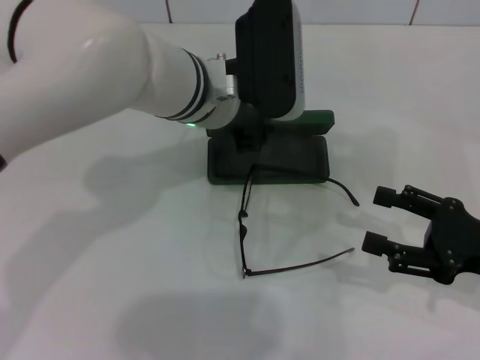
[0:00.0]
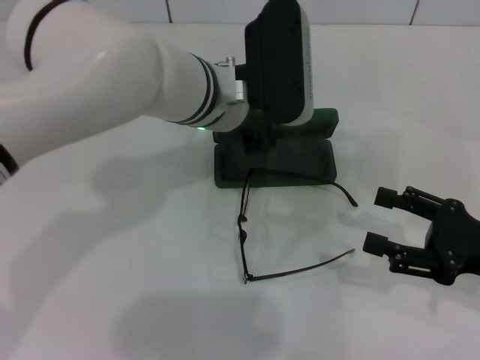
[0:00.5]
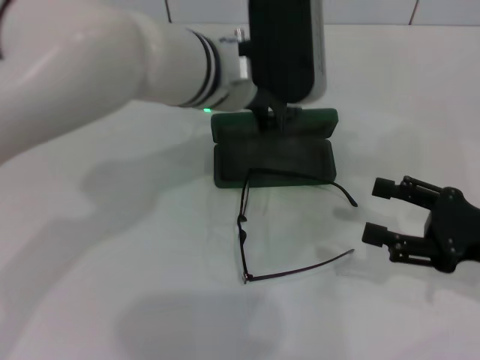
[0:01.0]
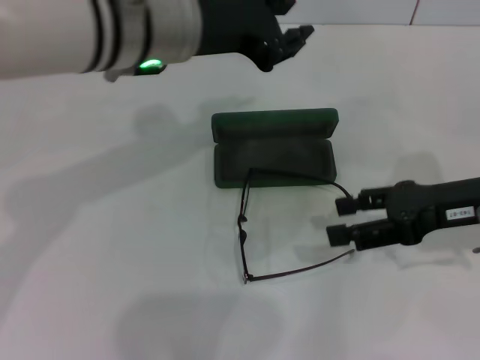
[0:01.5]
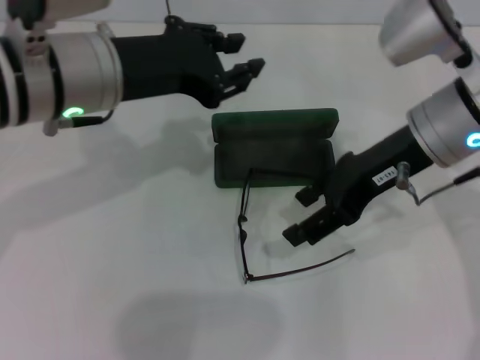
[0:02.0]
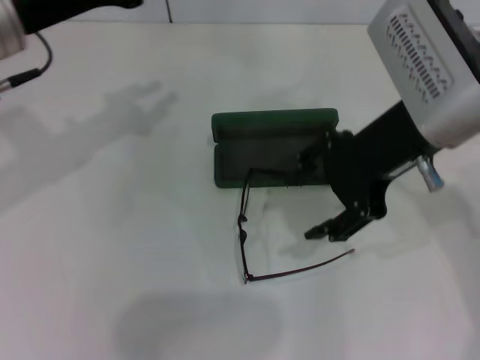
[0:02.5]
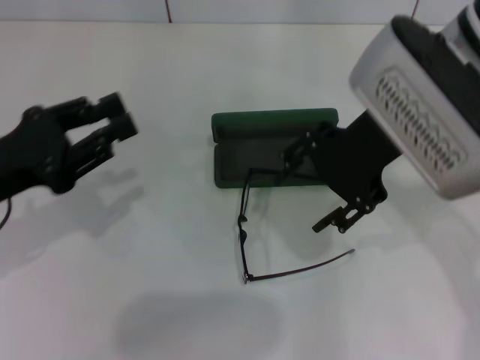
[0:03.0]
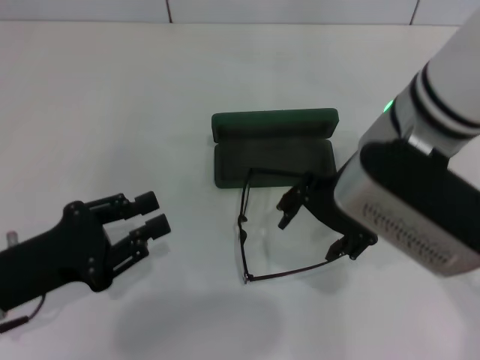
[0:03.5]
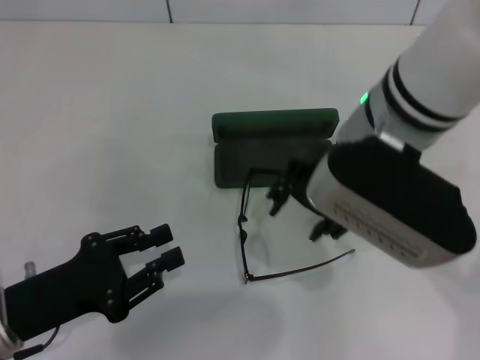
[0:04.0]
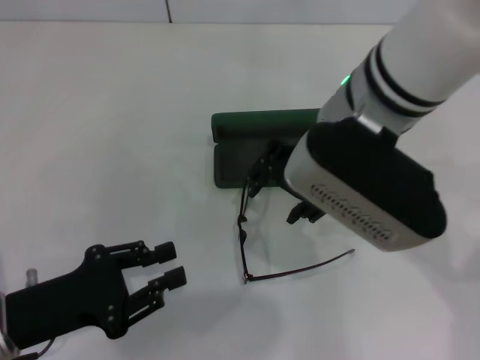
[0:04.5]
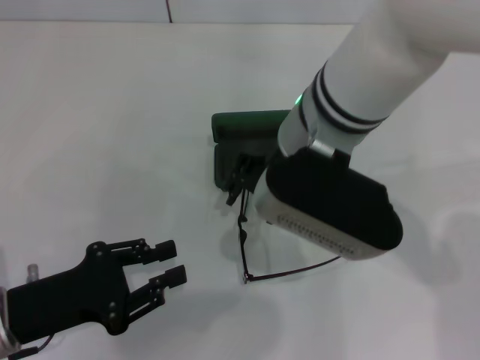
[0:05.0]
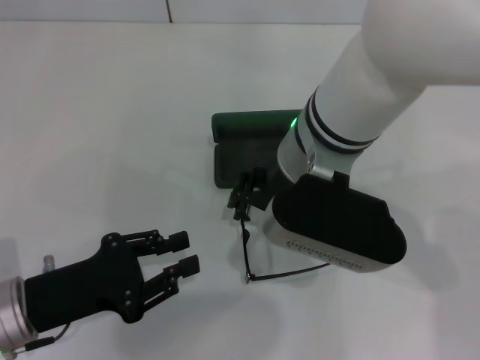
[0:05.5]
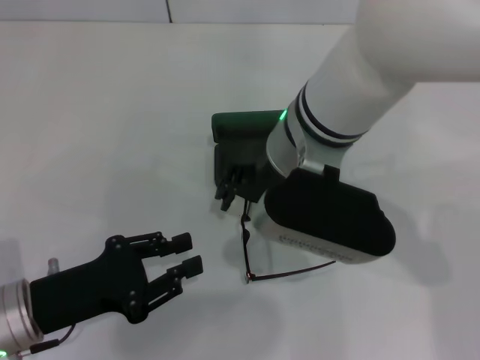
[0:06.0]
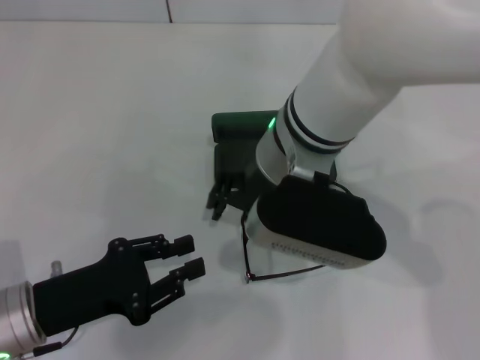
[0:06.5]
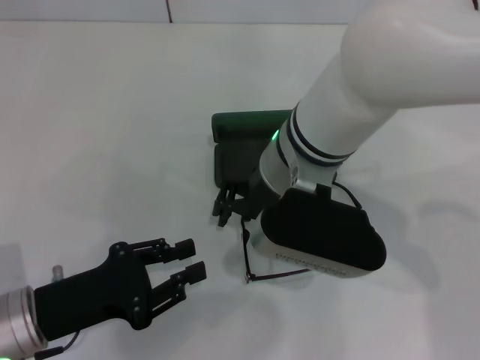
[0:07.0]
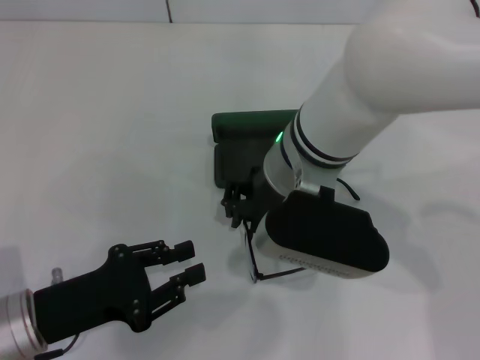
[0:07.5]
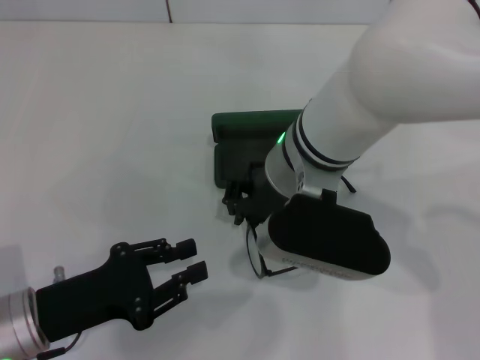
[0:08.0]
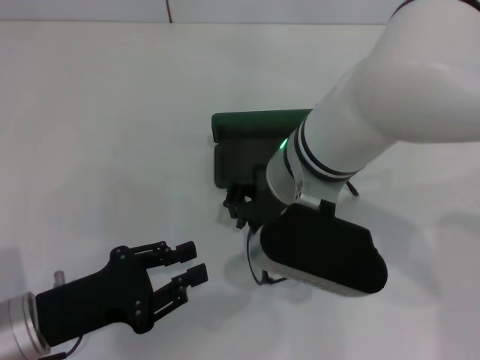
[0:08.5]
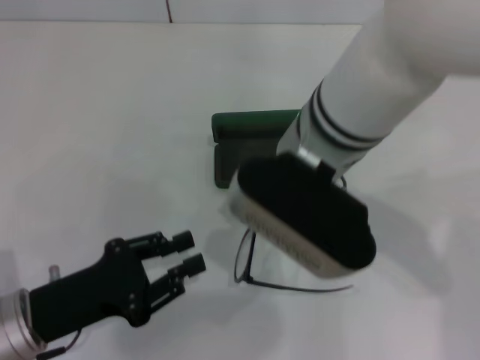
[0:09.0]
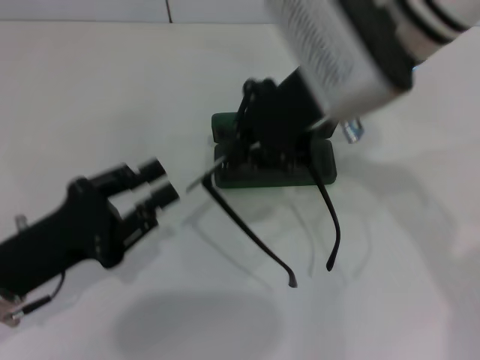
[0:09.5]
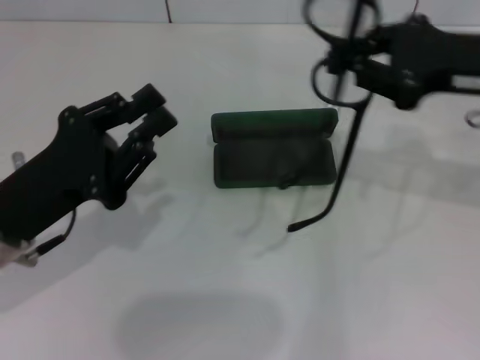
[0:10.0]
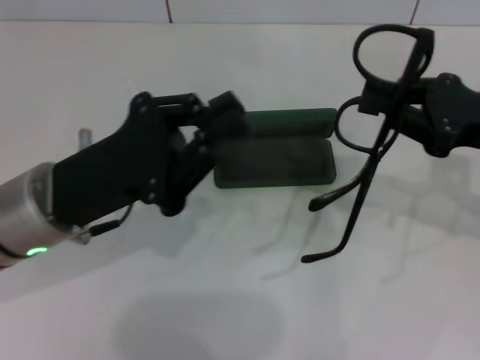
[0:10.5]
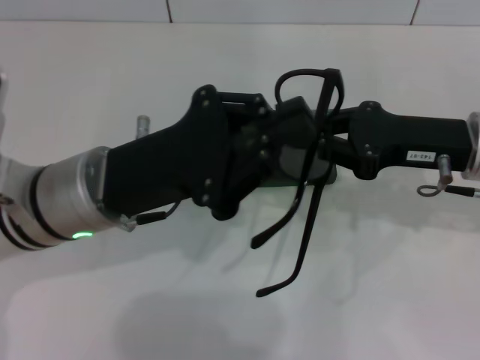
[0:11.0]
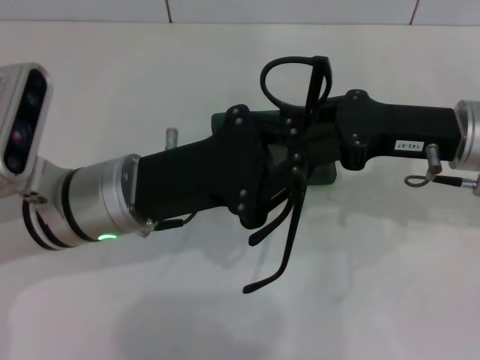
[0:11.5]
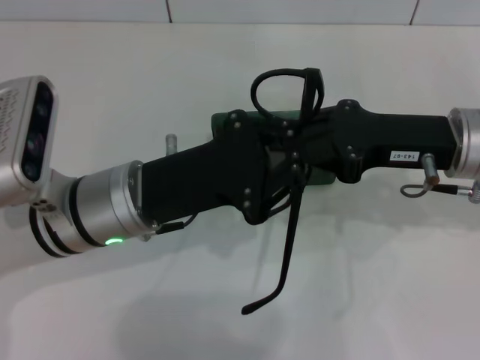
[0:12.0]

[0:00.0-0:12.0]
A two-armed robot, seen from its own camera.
Step, 0:01.0 to 0:08.0: Grab the eyeglass frame with your right hand.
0:00.0 to 0:02.0: The left gripper goes roughly 15 cm to the left, backward and upward, while the right gripper moves to the left, upward and forward, some 20 cm.
0:02.0 to 0:04.0: The left gripper goes approximately 25 cm downward, backward and to the left. The right gripper travels to the left by roughly 5 cm.
0:04.0 to 0:06.0: The right gripper travels to the left by approximately 5 cm.
0:06.0 to 0:08.0: The right gripper closes.
0:08.0 to 0:10.0: The left gripper heads upward, covering some 5 cm. Meanwhile the right gripper goes roughly 20 cm to the right.
0:10.0 to 0:12.0: The left gripper travels to the right by approximately 10 cm, and closes its fingers, while the right gripper travels downward by some 5 cm.

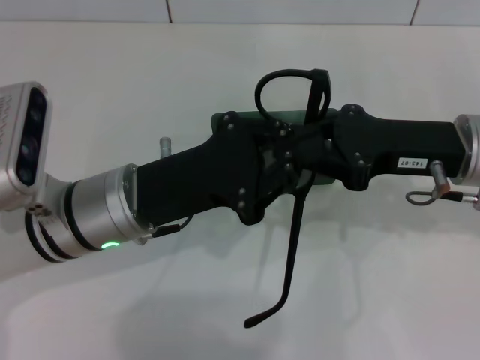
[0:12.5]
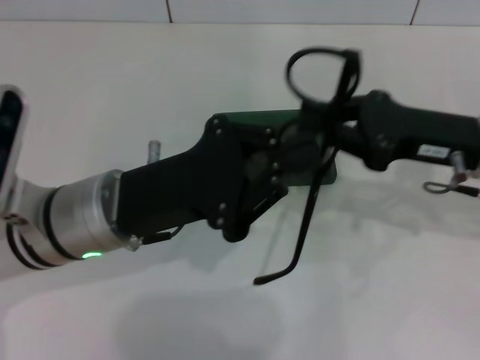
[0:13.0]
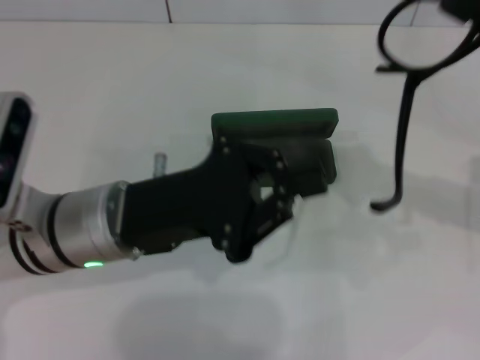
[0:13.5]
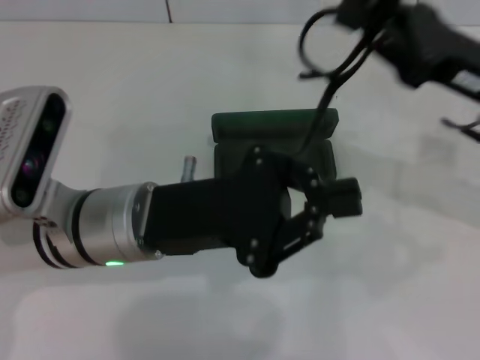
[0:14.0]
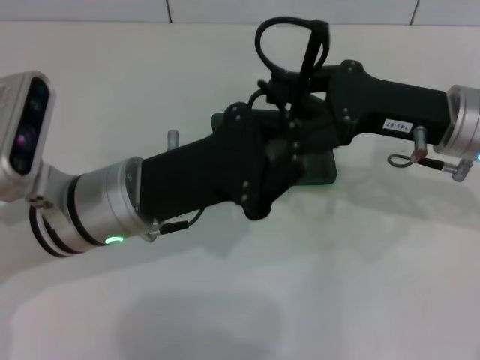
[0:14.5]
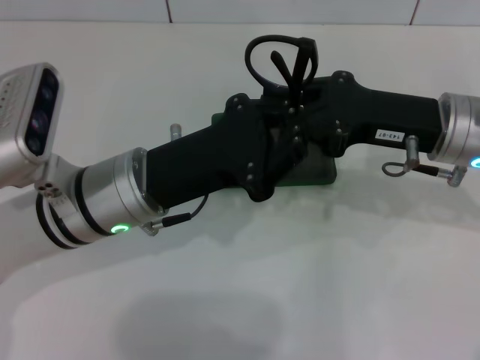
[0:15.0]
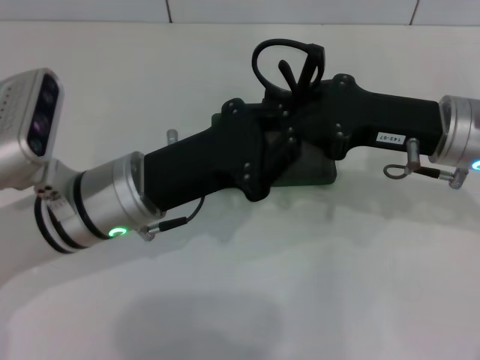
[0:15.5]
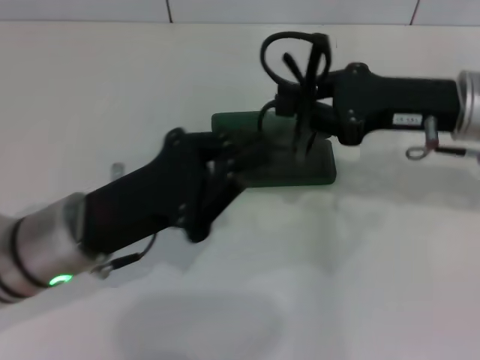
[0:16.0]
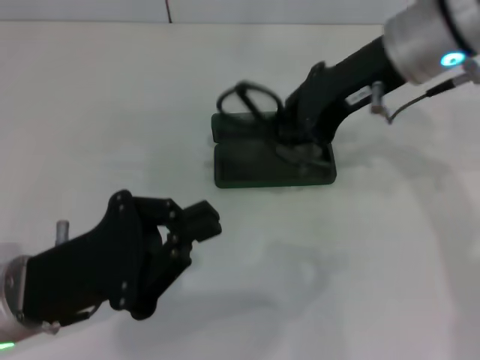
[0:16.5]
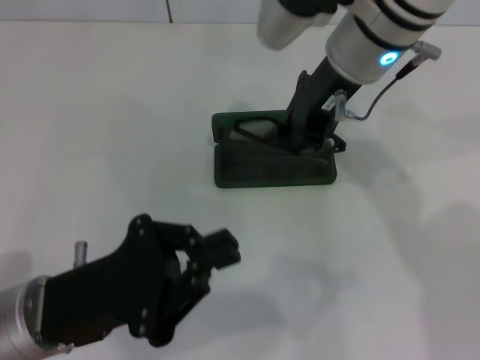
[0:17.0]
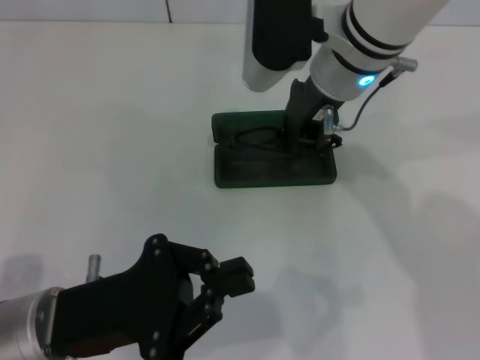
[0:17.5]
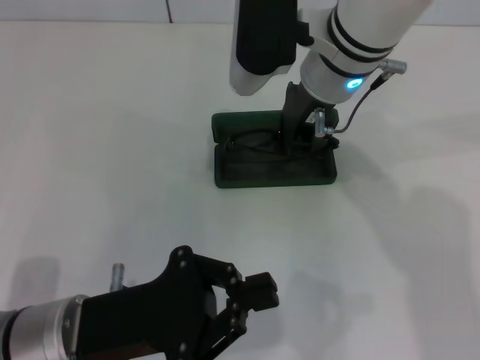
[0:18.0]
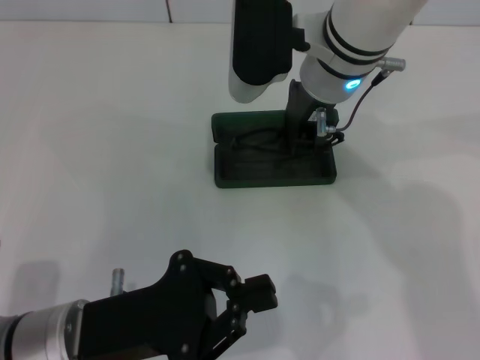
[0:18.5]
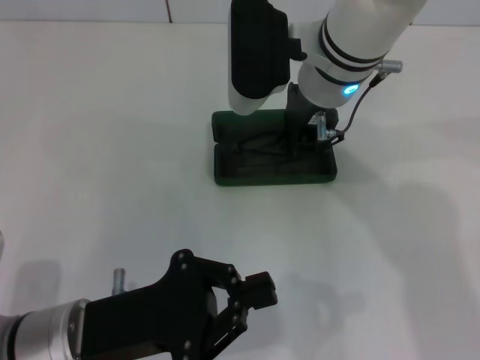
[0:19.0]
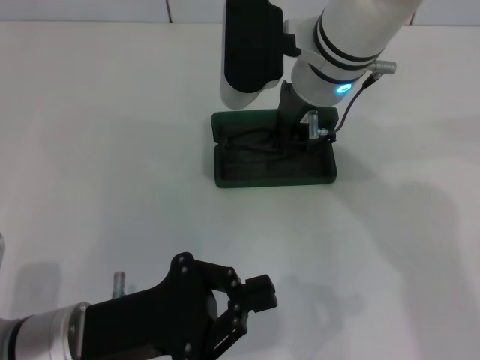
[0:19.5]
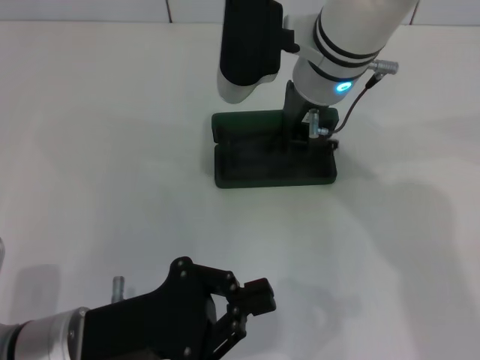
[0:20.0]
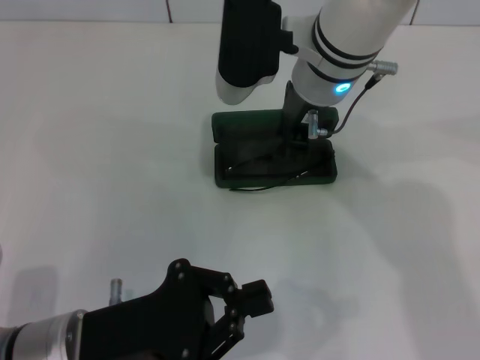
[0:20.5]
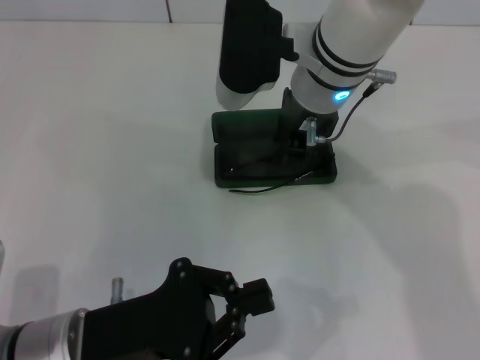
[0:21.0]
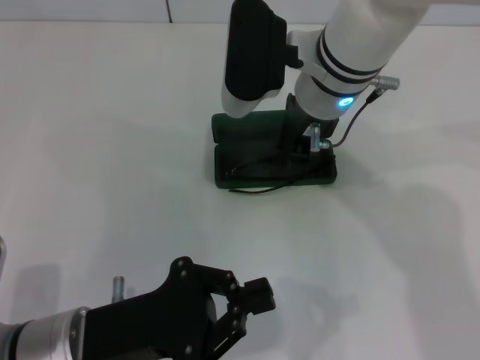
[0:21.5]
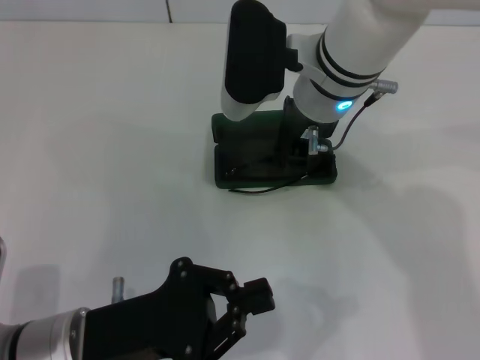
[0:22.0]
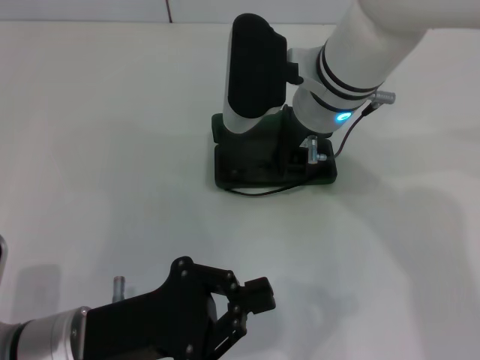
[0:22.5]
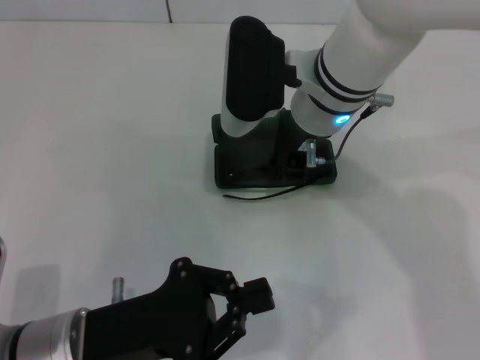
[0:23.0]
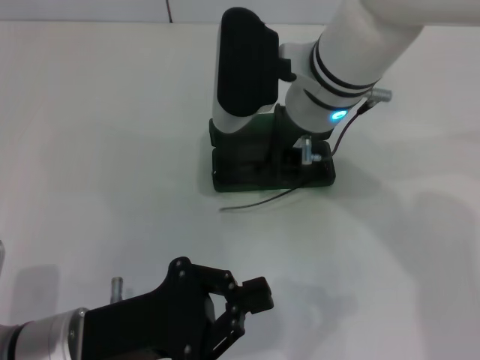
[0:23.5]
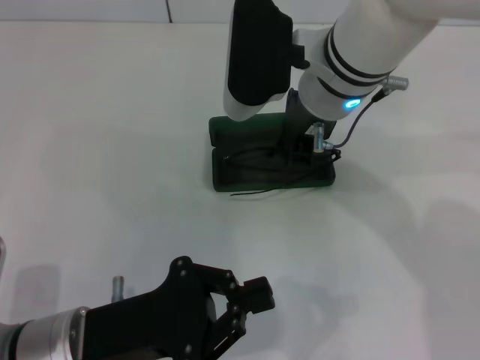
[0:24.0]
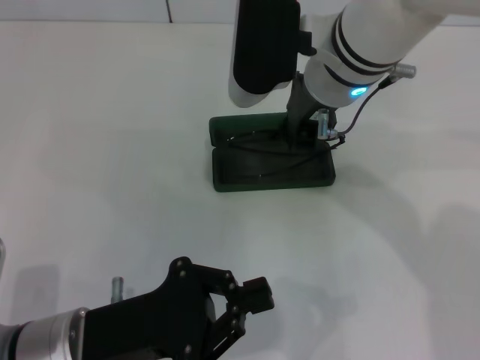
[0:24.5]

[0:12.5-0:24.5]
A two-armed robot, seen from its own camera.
0:12.5 to 0:14.5: The right gripper travels to the right and back again, approximately 10 cm each way.
0:14.5 to 0:16.5: The right gripper is displaced upward and to the left by approximately 10 cm. Meanwhile the left gripper travels backward and to the left by approximately 10 cm.
0:16.5 to 0:18.5: The right gripper heads to the left, covering approximately 10 cm.
0:18.5 to 0:20.5: The two grippers keep their place.
0:20.5 to 0:24.5: The grippers move only a little.

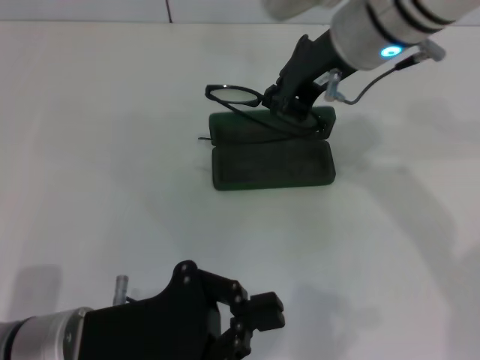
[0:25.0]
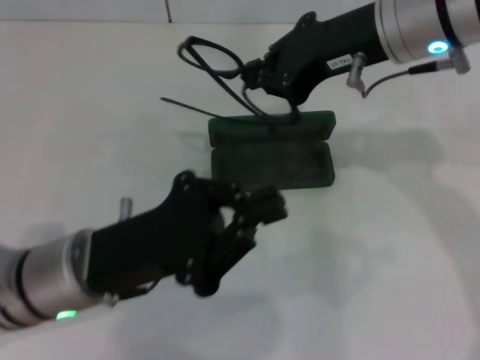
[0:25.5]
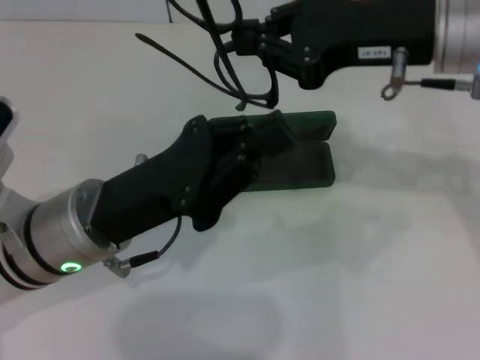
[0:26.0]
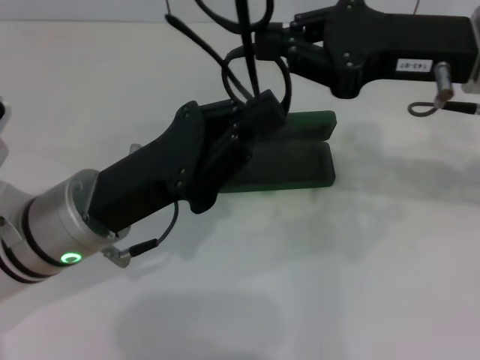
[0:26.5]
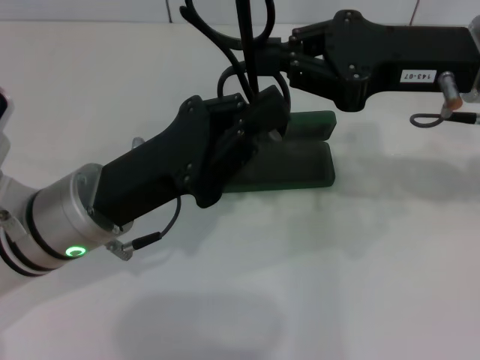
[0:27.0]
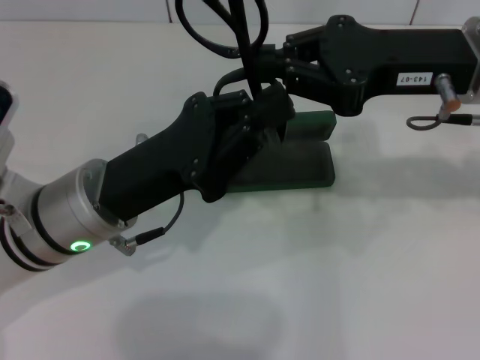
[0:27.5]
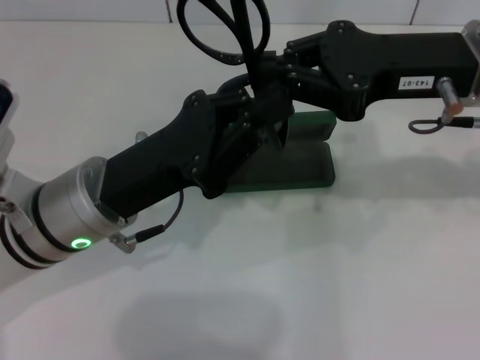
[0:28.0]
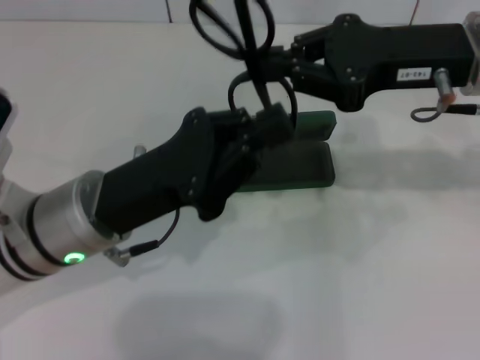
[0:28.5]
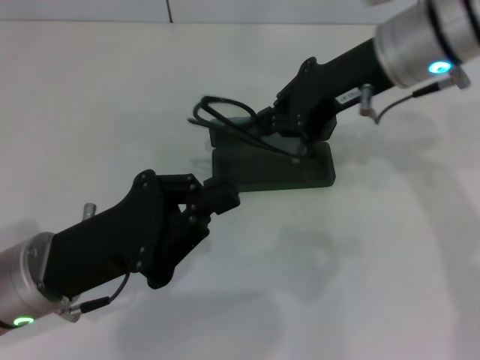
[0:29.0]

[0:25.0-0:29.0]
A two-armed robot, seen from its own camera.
Step, 0:25.0 to 0:28.5: Fold the frame with your left hand.
0:25.0 to 0:27.0: The left gripper moves forward, roughly 10 cm. Meanwhile the right gripper is displaced to the right by some 10 cm.
0:27.0 to 0:29.0: The right gripper heads to the left, covering about 5 cm; the left gripper changes place by about 5 cm.
